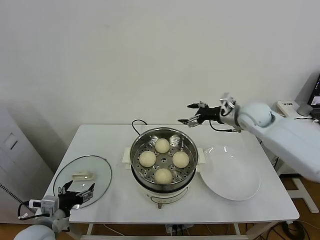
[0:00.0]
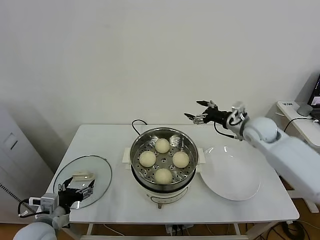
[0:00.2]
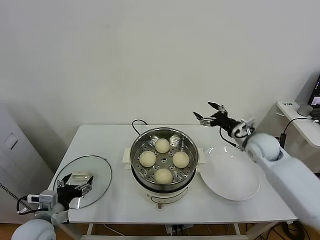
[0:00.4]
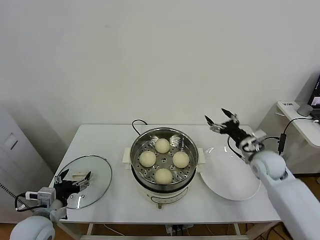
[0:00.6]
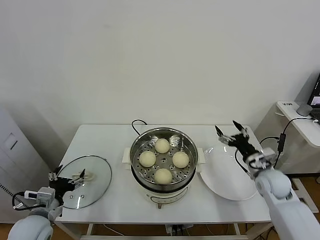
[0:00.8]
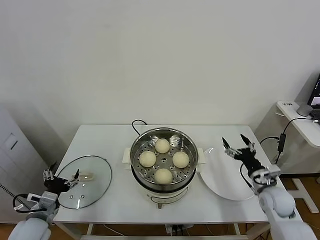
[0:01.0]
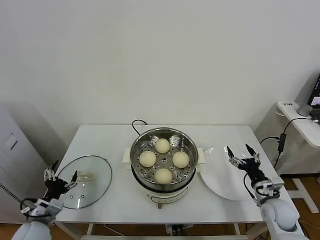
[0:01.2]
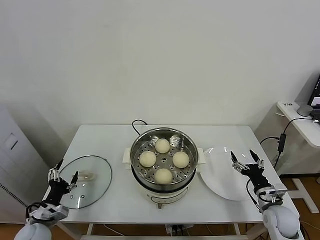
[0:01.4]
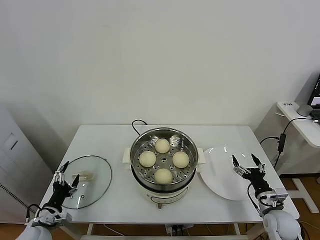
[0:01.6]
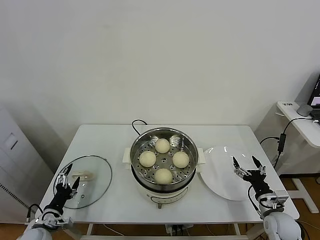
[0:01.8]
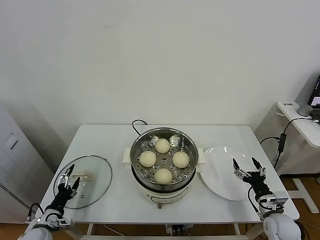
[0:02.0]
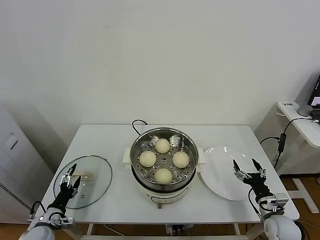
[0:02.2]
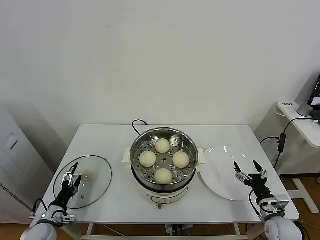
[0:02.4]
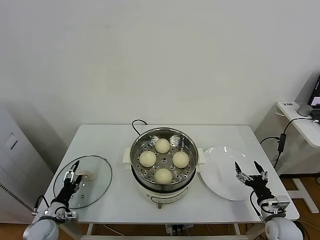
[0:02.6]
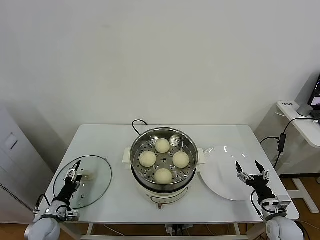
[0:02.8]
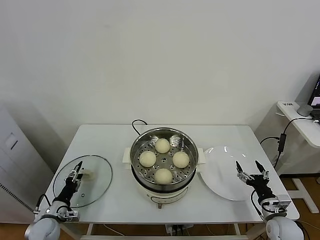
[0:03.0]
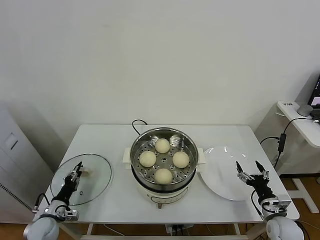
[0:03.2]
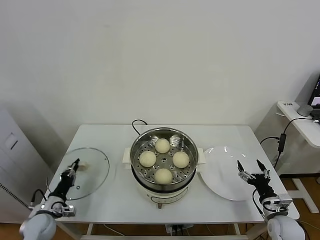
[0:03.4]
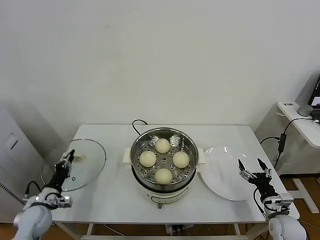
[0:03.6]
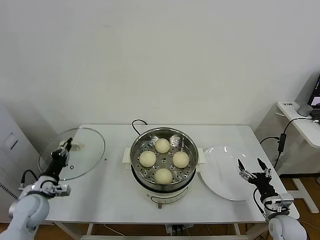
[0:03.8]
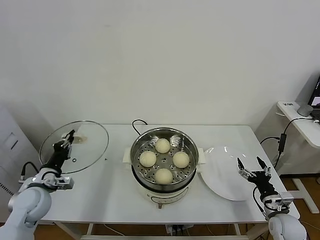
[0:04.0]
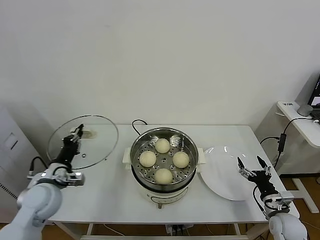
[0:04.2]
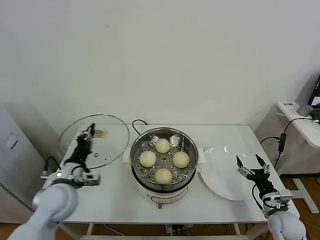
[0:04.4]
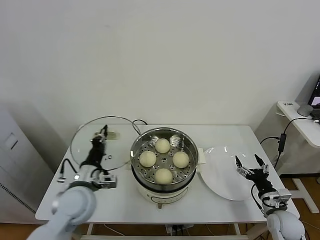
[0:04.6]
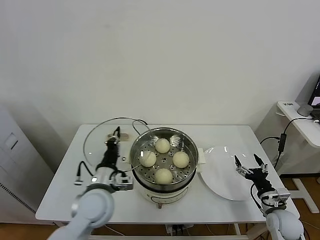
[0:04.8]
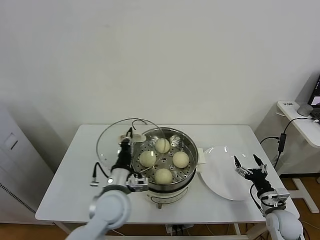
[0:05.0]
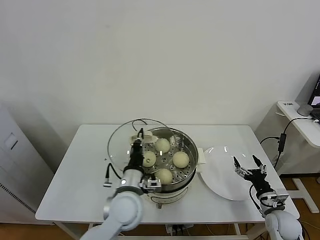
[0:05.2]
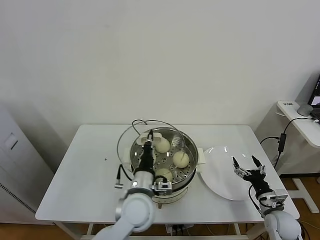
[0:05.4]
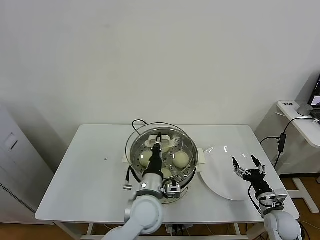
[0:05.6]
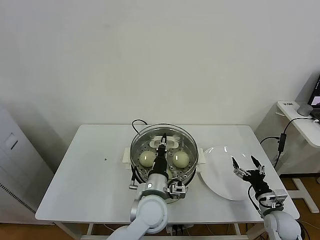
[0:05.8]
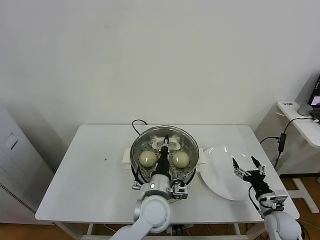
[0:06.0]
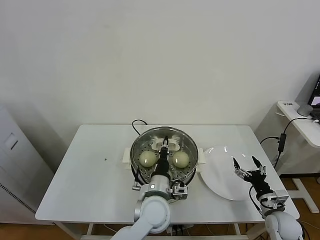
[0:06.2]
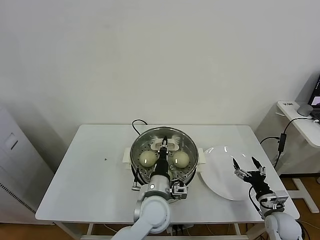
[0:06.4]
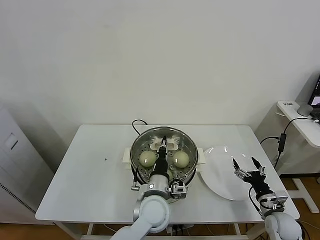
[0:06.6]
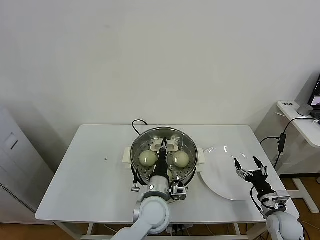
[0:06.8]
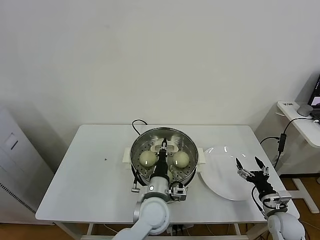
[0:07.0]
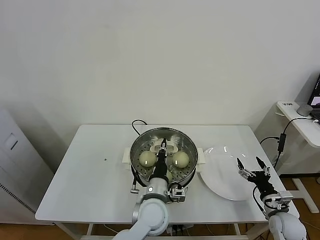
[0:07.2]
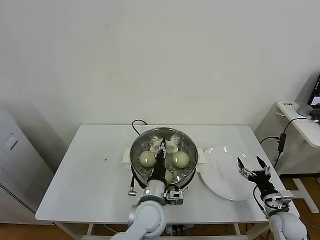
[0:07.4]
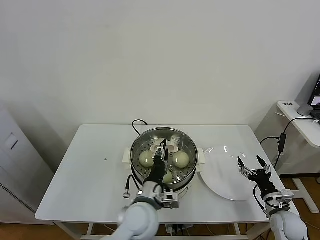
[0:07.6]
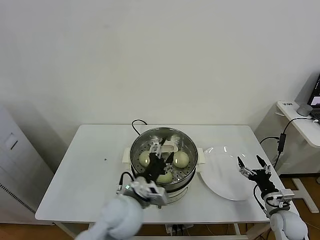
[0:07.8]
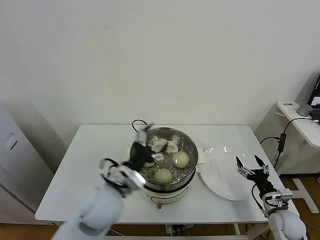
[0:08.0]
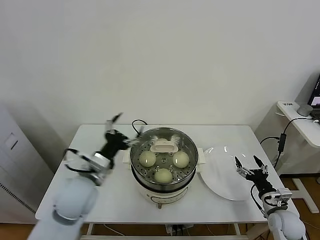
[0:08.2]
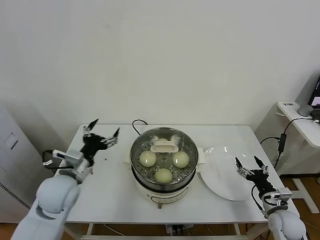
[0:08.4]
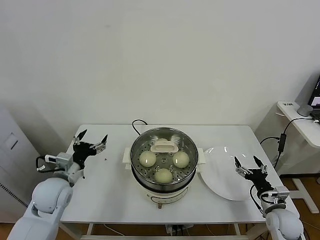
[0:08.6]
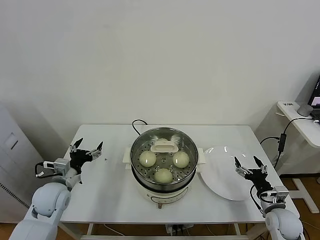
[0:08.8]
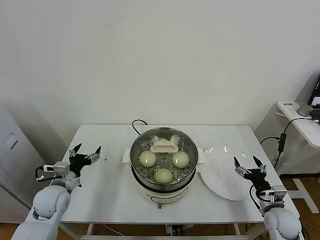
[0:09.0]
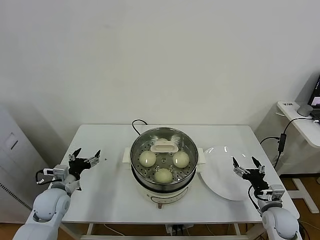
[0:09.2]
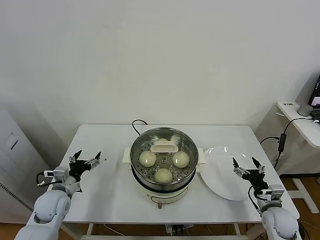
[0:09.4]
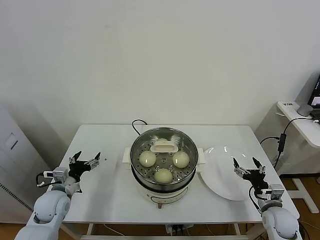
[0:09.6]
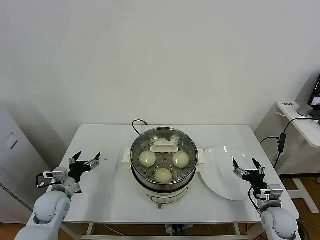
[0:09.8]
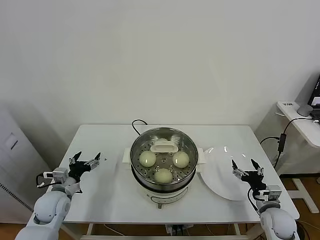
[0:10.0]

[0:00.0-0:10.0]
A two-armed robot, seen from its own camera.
Task of the whole recording: take steamed baozi put them in steamer.
Step, 0:00.0 to 0:03.6: Grasp the pot lid with left gripper.
Step, 0:03.8 to 0:07.8: Place the pot lid on the steamer with left gripper.
0:00.0 to 0:01.4: The left gripper goes roughly 10 cm downward and to the left. The right gripper heads downward and backward, covering some 35 cm.
0:01.4 to 0:02.8: The left gripper travels downward by some 10 cm.
0:02.8 to 0:04.2: The left gripper travels upward by some 20 cm, and closes its fingers.
0:04.2 to 0:05.8: The left gripper shifts about 30 cm to the right.
0:05.8 to 0:07.2: The grippers stay close to where they were, moving slightly.
0:07.2 to 0:08.6: The left gripper moves to the left, about 30 cm, and opens.
0:08.6 to 0:10.0: The left gripper travels downward and to the left by approximately 10 cm.

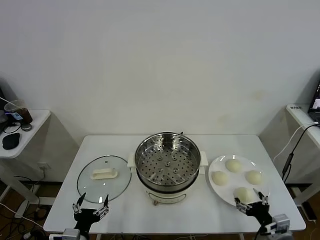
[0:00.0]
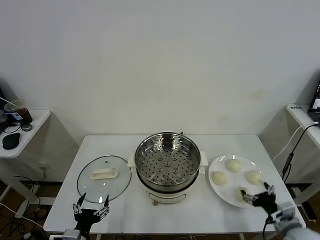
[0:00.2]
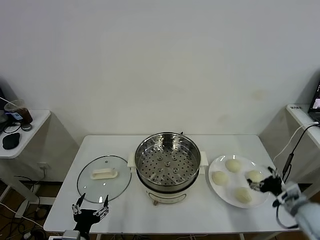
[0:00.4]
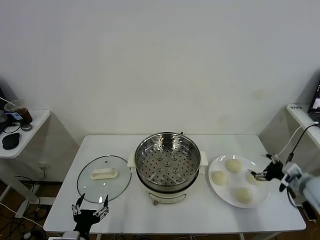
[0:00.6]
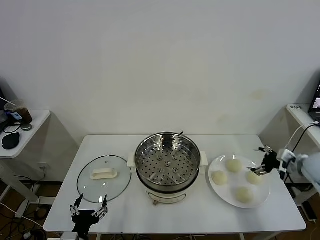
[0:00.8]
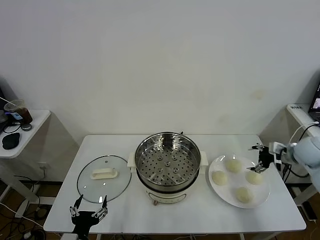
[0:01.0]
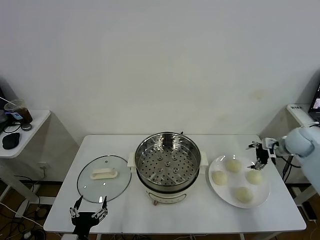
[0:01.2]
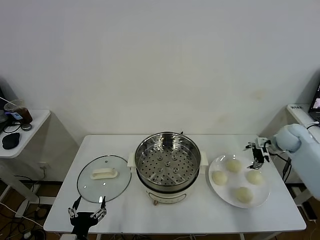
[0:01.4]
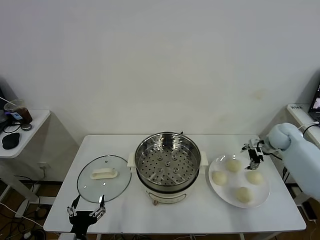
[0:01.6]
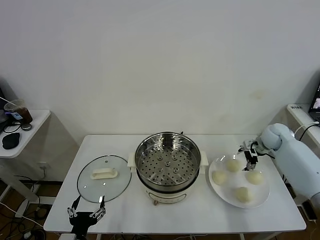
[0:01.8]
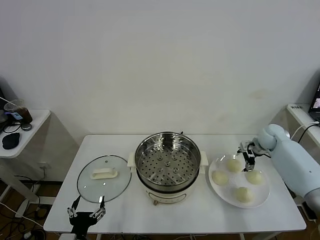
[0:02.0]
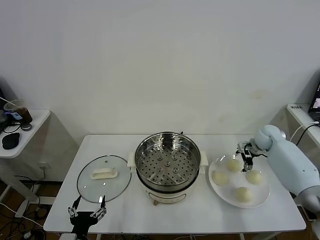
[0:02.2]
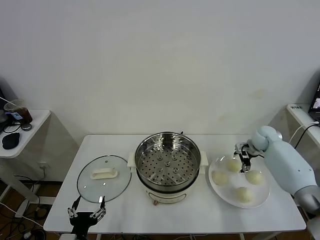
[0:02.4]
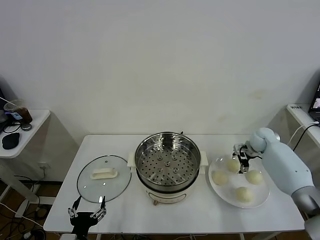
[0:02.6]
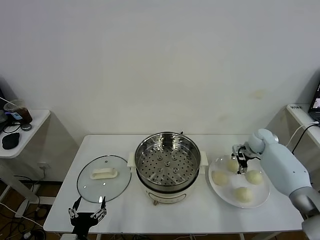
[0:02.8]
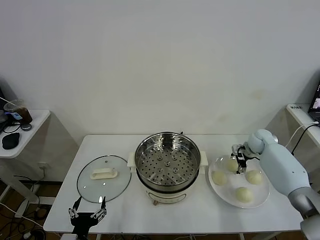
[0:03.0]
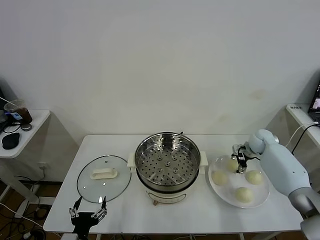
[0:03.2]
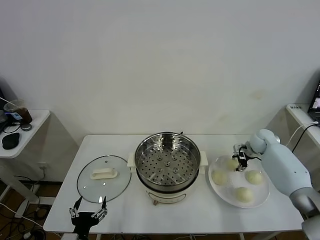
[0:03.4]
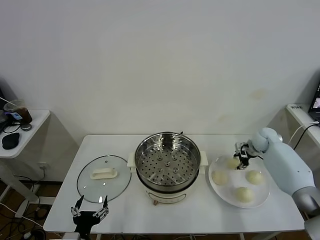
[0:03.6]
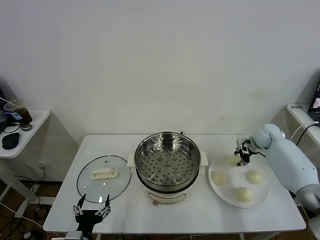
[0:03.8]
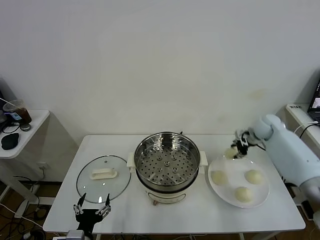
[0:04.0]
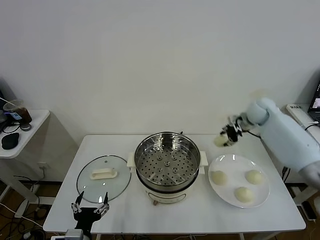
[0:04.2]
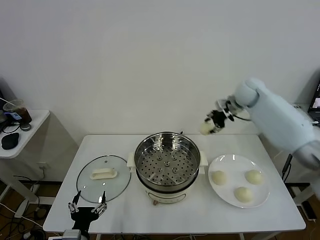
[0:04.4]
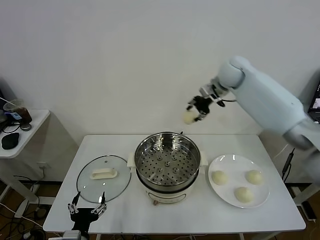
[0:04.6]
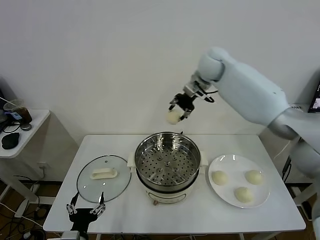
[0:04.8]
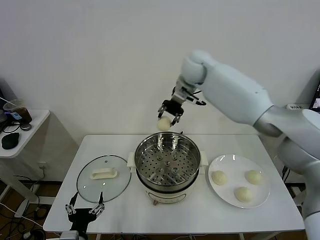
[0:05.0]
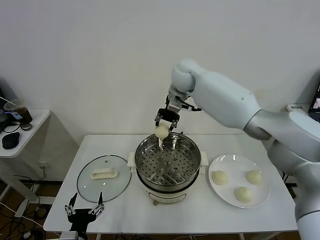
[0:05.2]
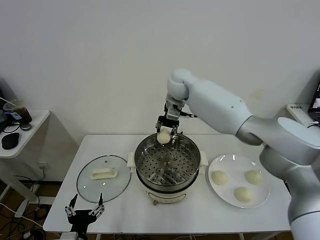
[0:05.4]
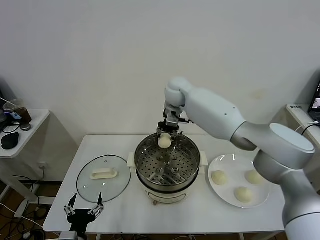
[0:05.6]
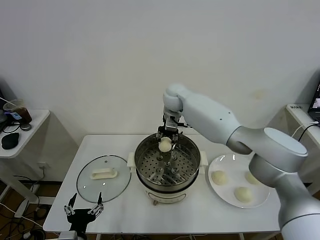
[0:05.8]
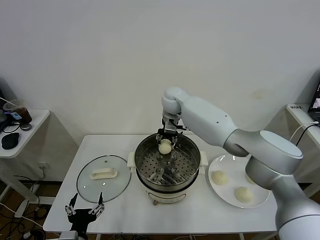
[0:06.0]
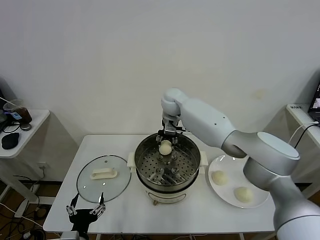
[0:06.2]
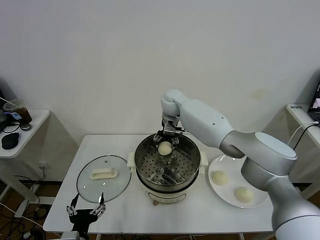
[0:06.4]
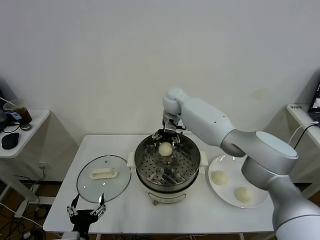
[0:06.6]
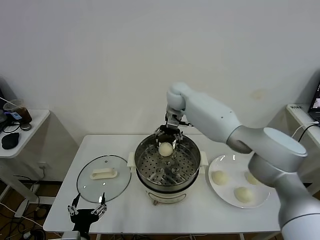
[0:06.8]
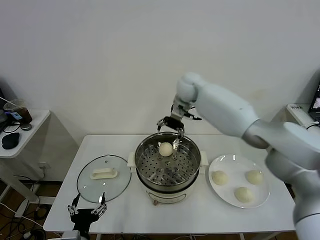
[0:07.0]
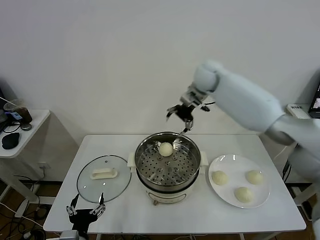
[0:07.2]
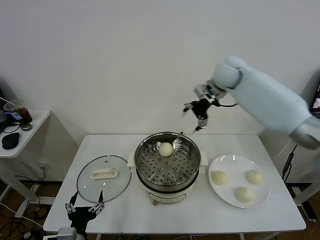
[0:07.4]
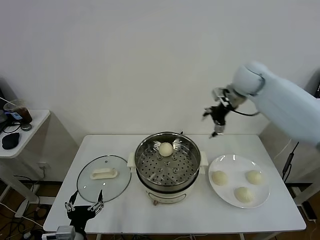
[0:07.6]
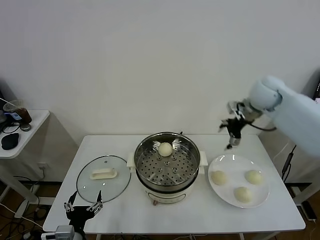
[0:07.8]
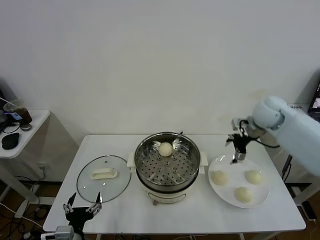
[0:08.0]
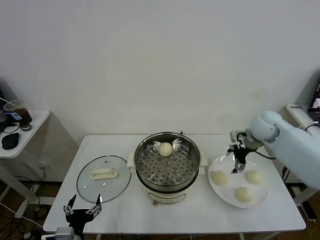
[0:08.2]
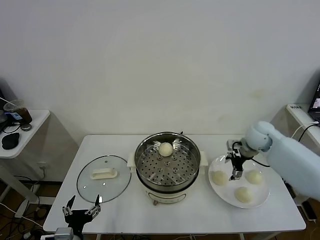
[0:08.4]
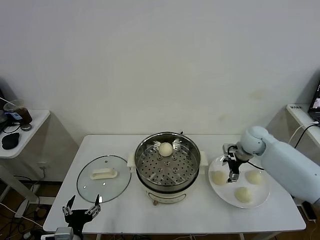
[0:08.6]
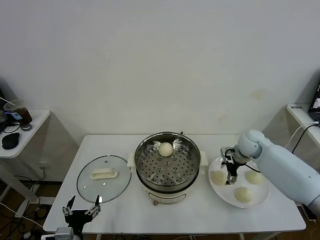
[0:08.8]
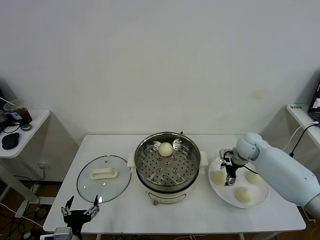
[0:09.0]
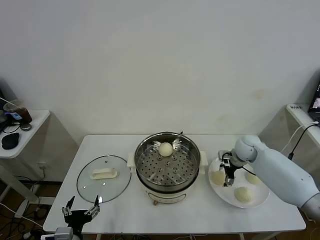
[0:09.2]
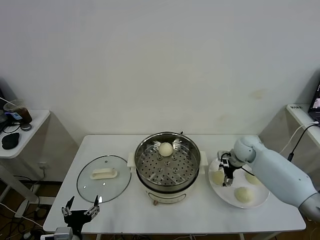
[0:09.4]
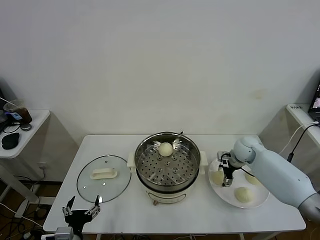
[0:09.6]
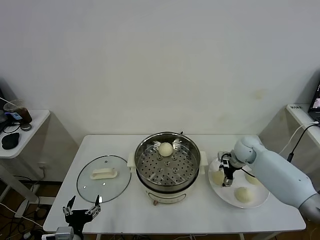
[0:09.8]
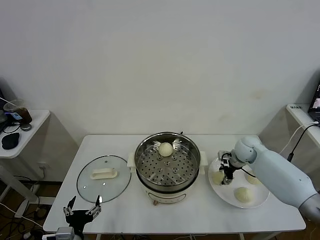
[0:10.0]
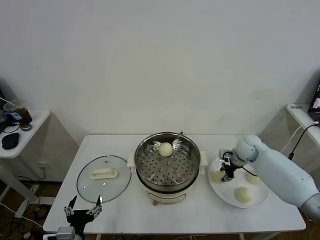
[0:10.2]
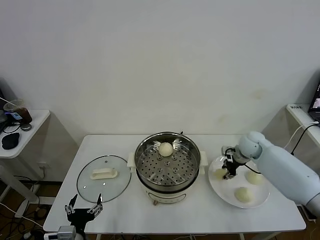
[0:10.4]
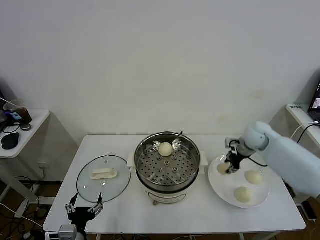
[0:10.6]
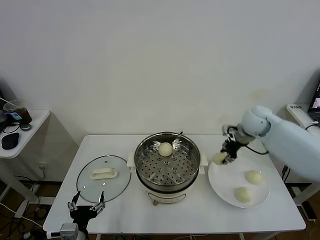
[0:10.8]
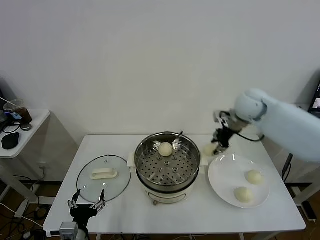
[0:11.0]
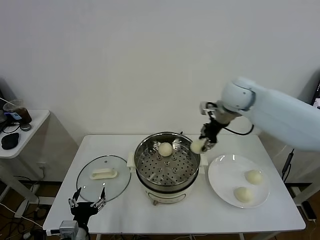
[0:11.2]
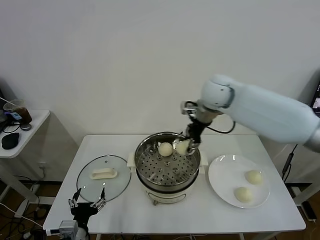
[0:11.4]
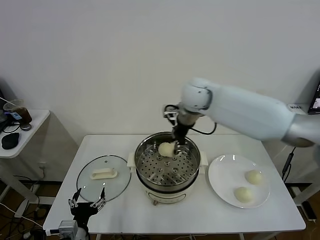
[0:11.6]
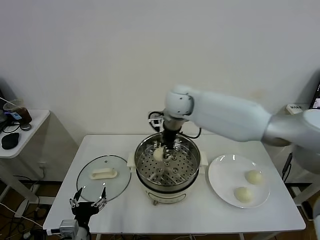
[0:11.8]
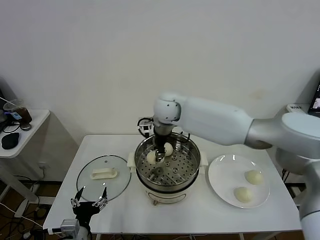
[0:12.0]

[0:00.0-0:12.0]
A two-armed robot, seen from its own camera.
Task of the whole recording: take steamed baozi put them in steamer.
Step, 0:00.0 to 0:03.2: Grasp the baozi in the plate with right gripper.
Step, 0:03.6 to 0:06.6: Place the baozi on the steamer with right gripper.
Step, 0:07.0 to 0:10.2: Grasp the baozi in the plate with right gripper.
0:01.6 to 0:03.0: The right gripper goes about 5 cm downward.
0:03.0 to 0:04.4: The right gripper shifts some 30 cm upward and to the left, and closes its fingers.
0:04.4 to 0:06.0: The right gripper travels to the left and downward by approximately 25 cm.
0:06.0 to 0:07.6: The right gripper travels to the right by about 25 cm, and opens its fingers.
0:07.6 to 0:09.0: The right gripper is displaced downward by approximately 25 cm.
0:09.0 to 0:10.4: The right gripper closes up.
0:10.4 to 0:12.0: The right gripper is displaced to the left by approximately 35 cm.
